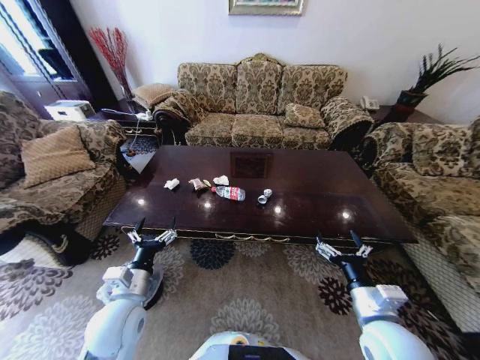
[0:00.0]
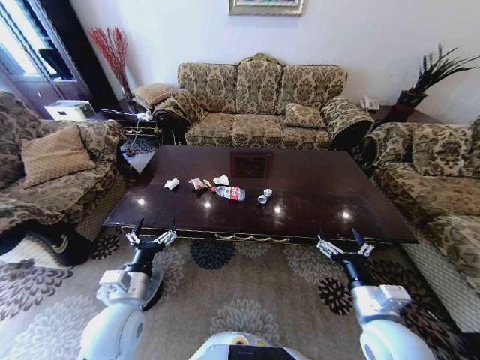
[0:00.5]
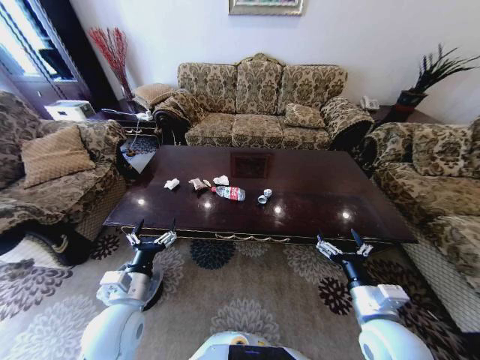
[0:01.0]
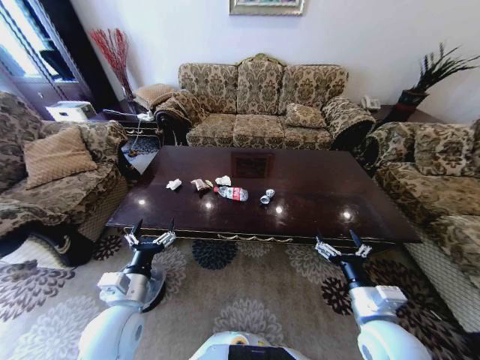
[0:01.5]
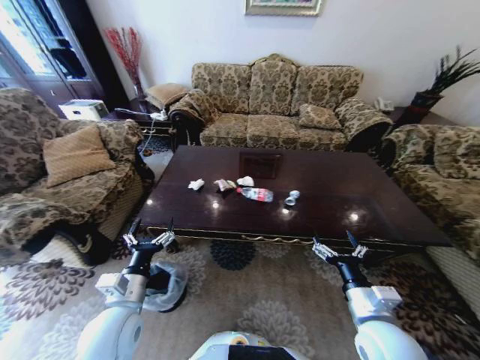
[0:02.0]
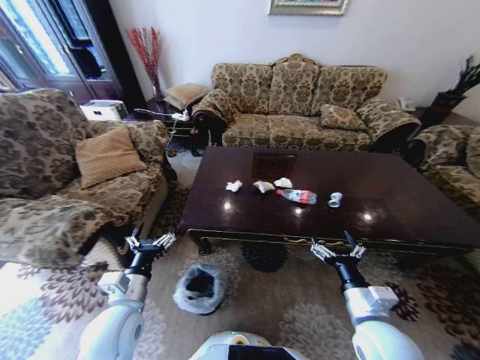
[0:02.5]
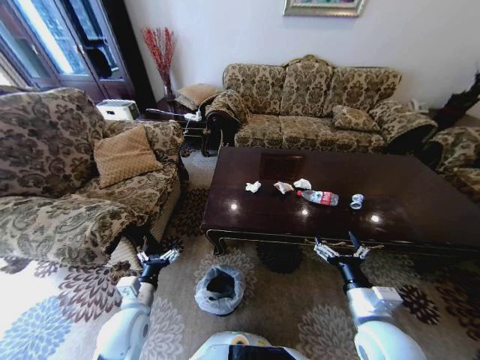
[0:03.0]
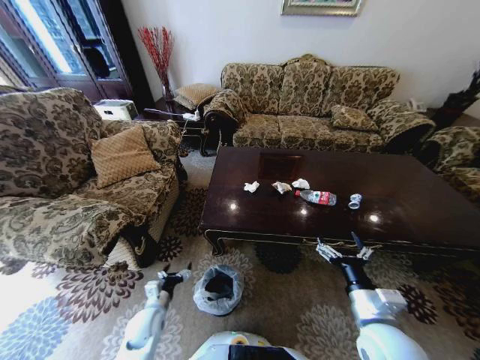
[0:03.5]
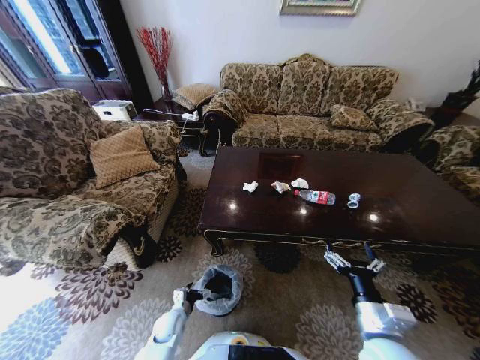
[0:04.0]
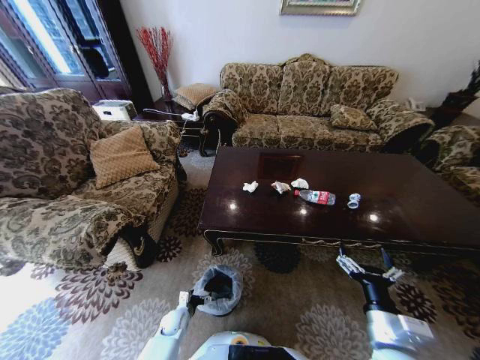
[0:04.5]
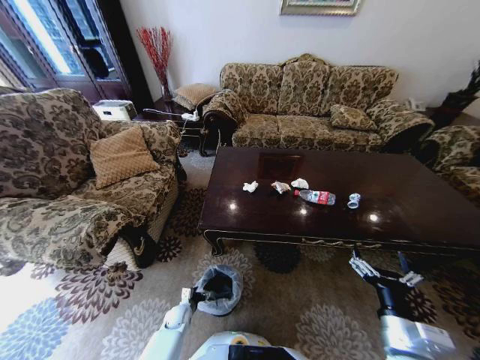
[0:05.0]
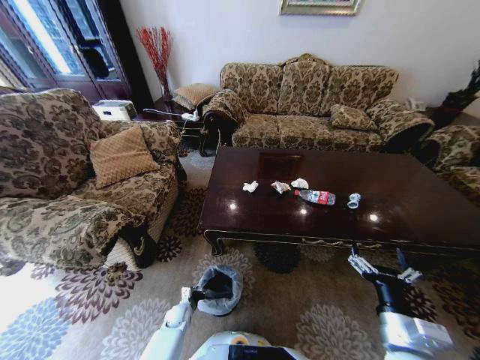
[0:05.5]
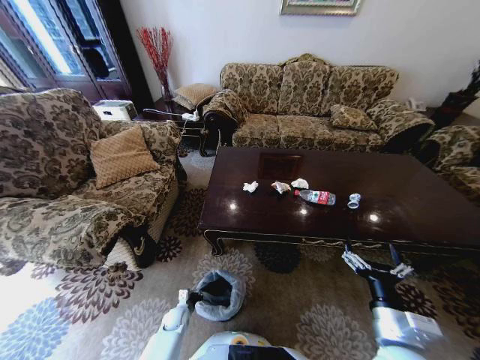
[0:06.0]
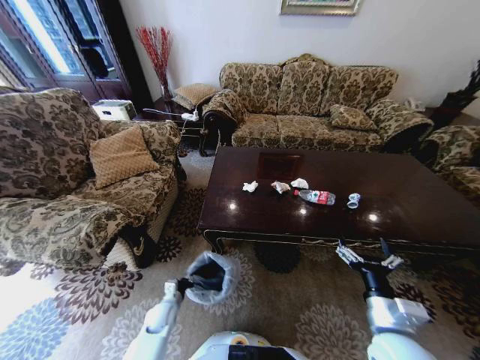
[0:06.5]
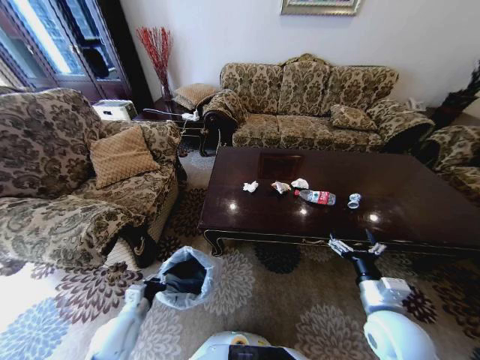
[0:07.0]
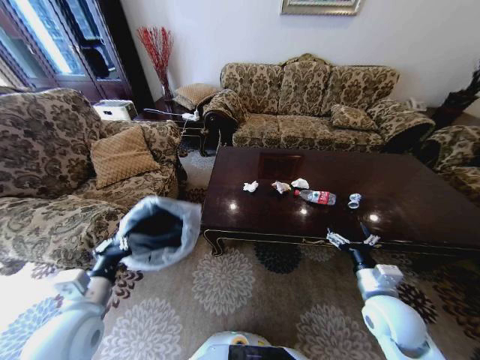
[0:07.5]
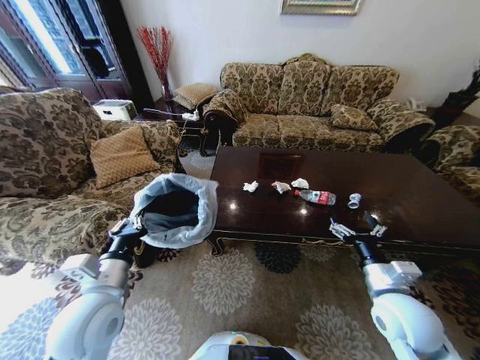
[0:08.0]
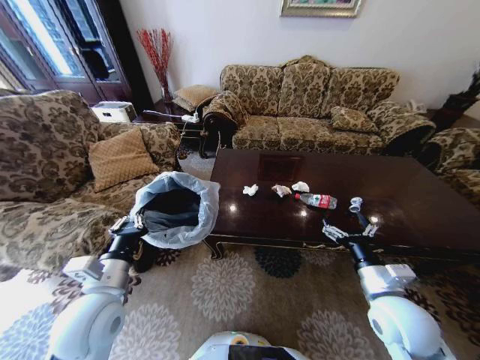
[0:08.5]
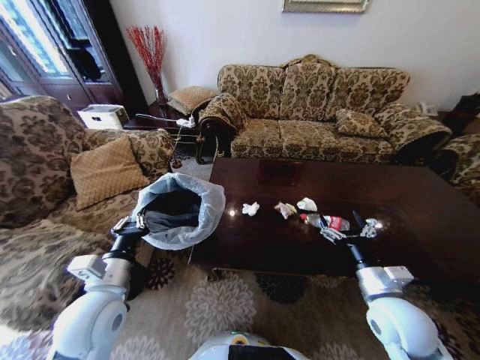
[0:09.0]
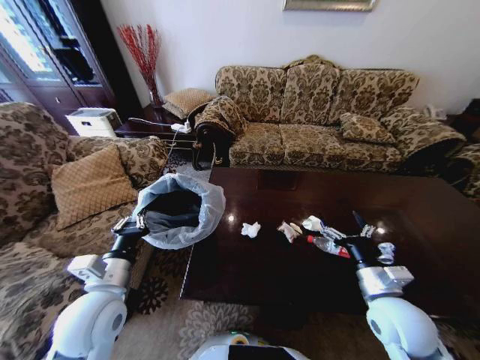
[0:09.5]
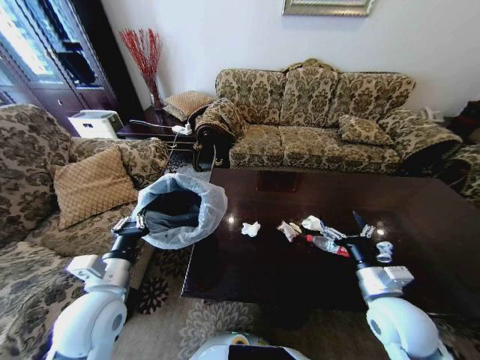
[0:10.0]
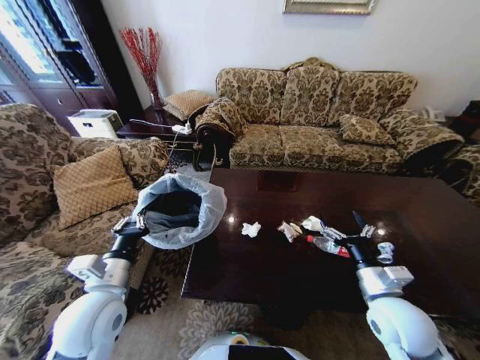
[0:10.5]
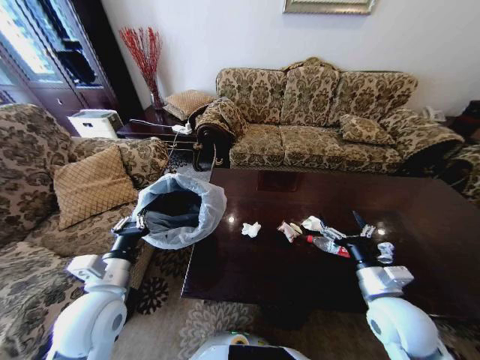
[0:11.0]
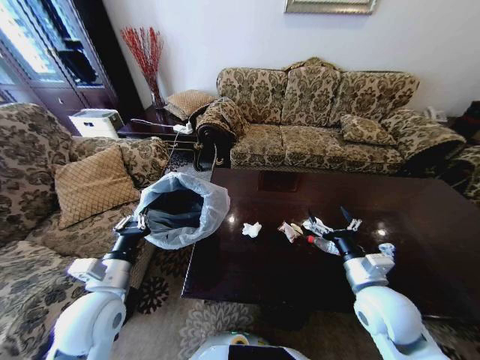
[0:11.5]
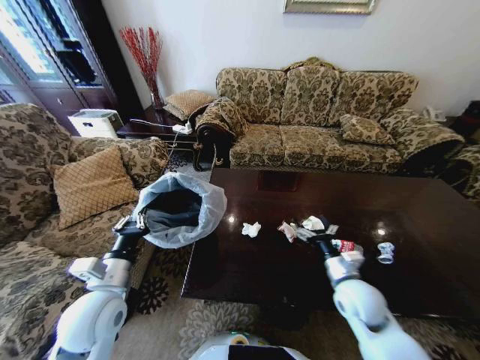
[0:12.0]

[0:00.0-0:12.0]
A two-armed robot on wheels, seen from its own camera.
Task of the whole recording: Move to the front of the table and place the trash on the table into the trash bin.
0:02.0 to 0:04.0: The left gripper shifts roughly 30 cm downward.
0:04.0 to 0:06.0: The left gripper travels downward by about 5 cm, and closes up.
0:06.0 to 0:08.0: The right gripper goes approximately 10 cm forward. Meanwhile the left gripper shifts some 40 cm upward.
0:10.0 to 0:12.0: The right gripper moves forward and downward, about 10 cm.

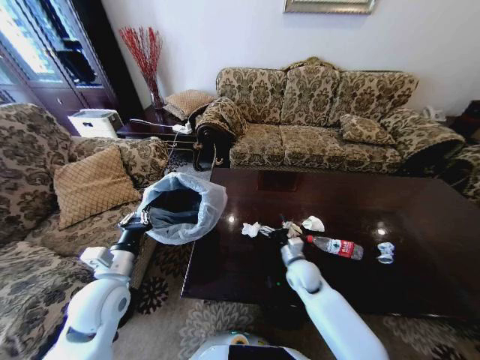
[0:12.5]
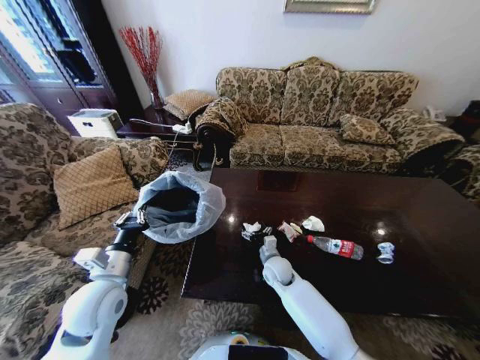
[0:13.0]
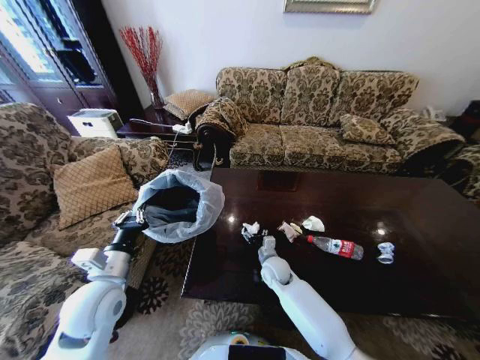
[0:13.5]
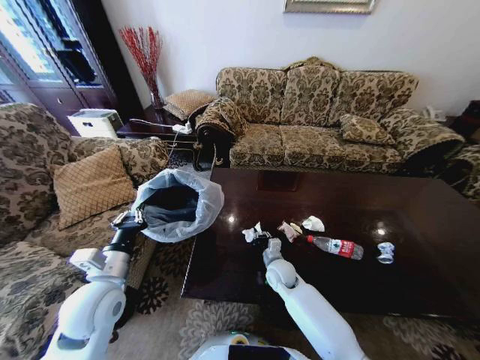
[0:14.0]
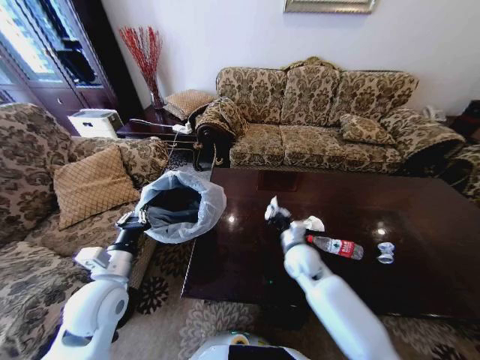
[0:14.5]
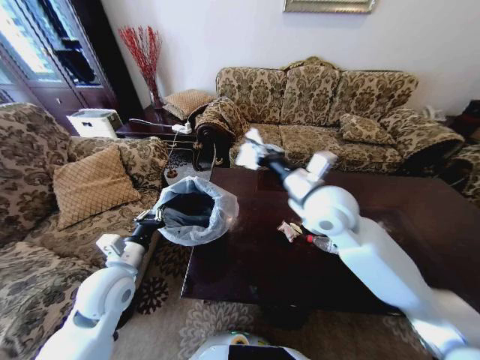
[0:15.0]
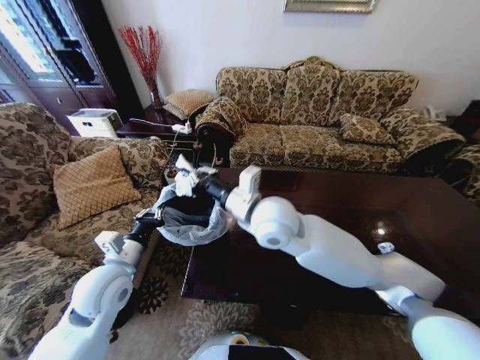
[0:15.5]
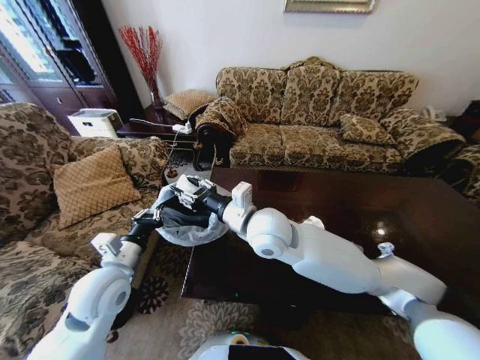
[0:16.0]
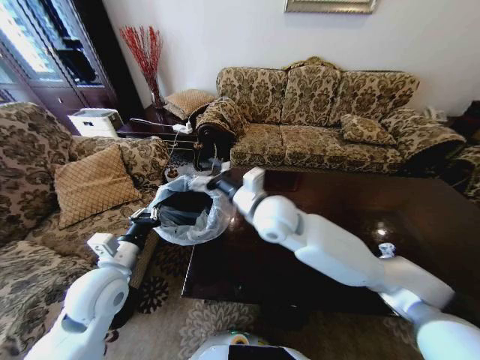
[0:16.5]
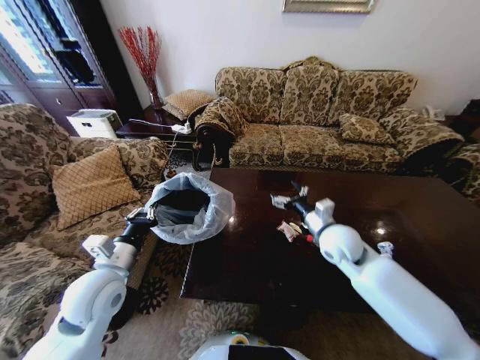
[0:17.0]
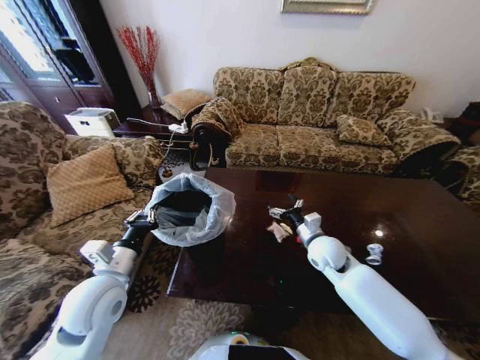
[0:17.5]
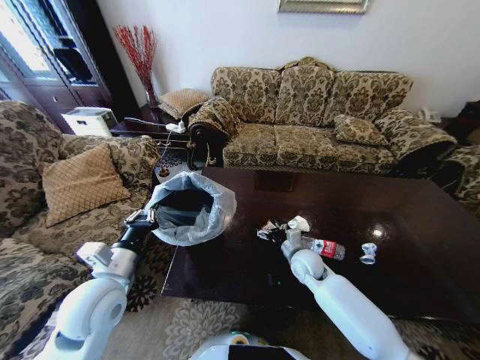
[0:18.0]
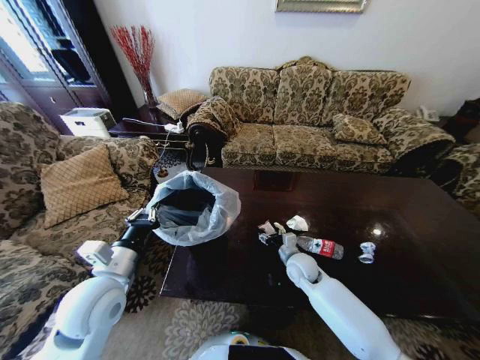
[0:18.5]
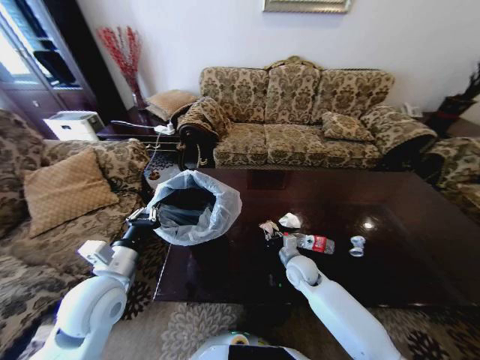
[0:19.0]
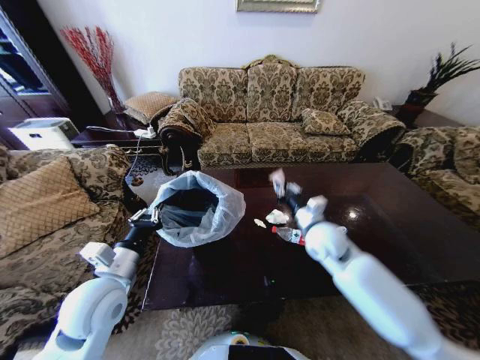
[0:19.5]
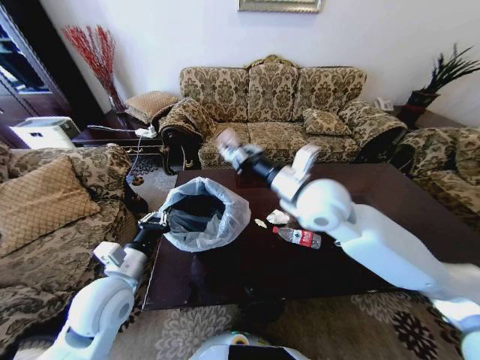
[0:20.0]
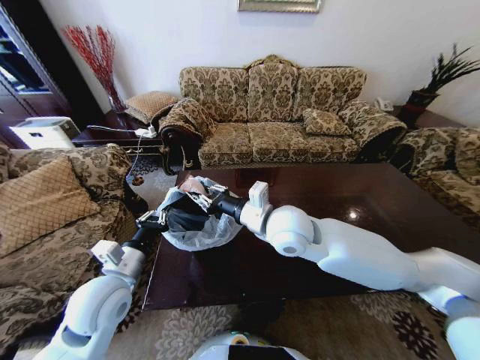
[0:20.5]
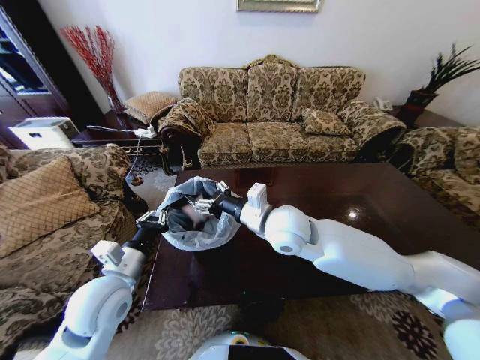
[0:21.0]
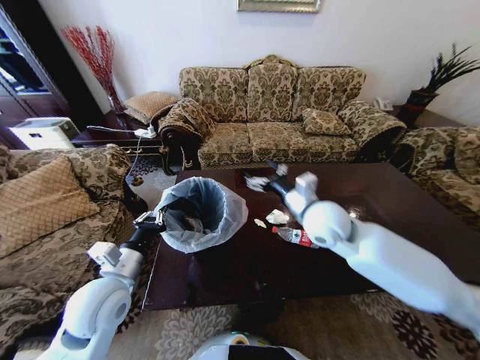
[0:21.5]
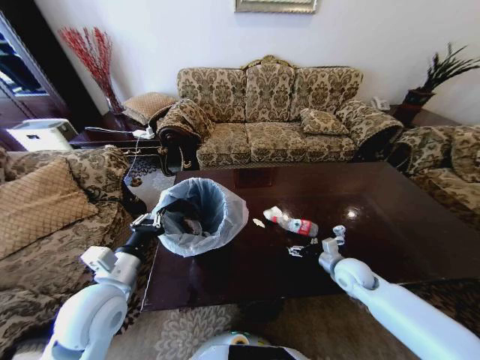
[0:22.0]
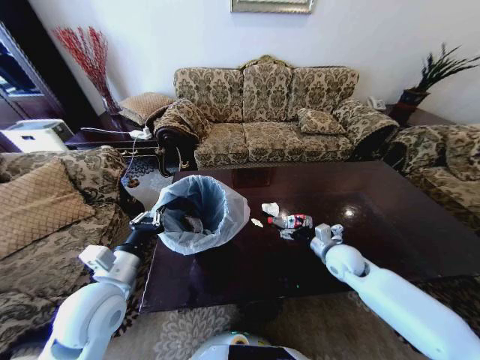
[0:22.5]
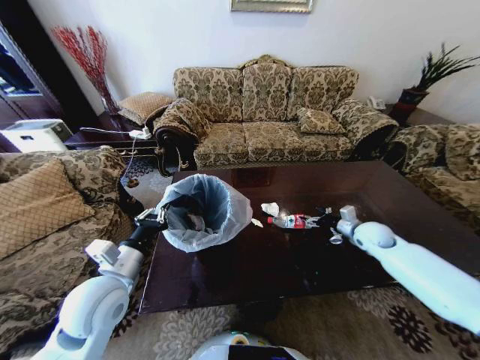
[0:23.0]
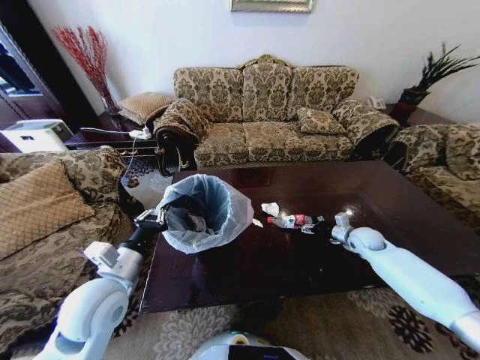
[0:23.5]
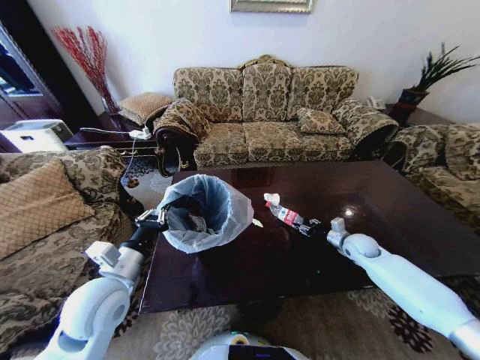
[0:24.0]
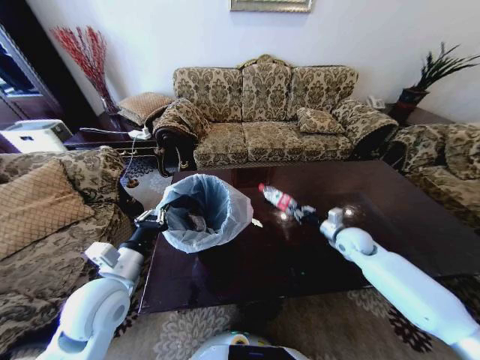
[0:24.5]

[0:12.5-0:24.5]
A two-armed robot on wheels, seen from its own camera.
Task of the whole recording: Move to the front of the table and place the trash on the table into the trash bin.
0:12.5 to 0:14.5: The right gripper travels upward by some 10 cm, and closes its fingers.
0:14.5 to 0:16.5: The right gripper shifts about 25 cm upward and to the left, and opens its fingers.
0:16.5 to 0:18.5: The right gripper travels downward and to the right by about 30 cm.
0:18.5 to 0:20.5: The right gripper goes approximately 30 cm upward and to the left, and closes up.
0:20.5 to 0:22.5: The right gripper heads to the right and downward, covering about 30 cm, and opens up.
0:22.5 to 0:24.5: The right gripper travels forward and to the right by some 10 cm, and closes up.

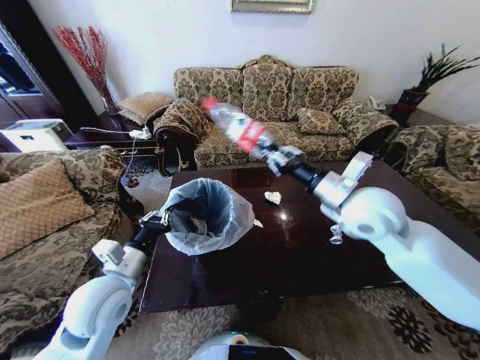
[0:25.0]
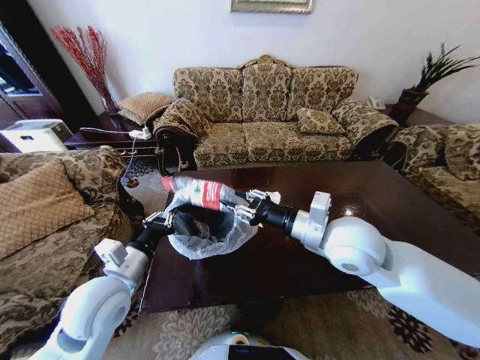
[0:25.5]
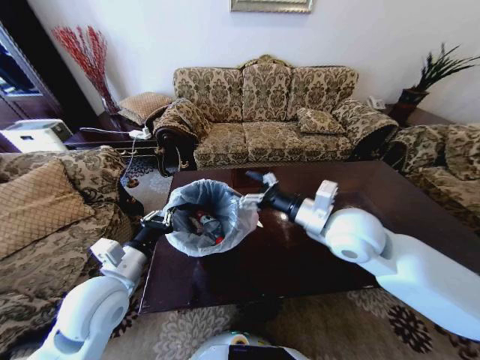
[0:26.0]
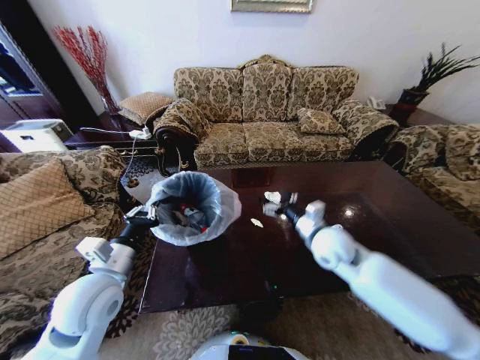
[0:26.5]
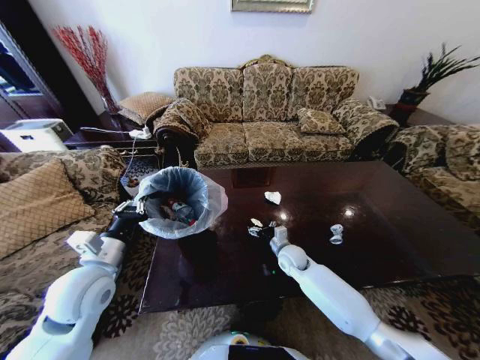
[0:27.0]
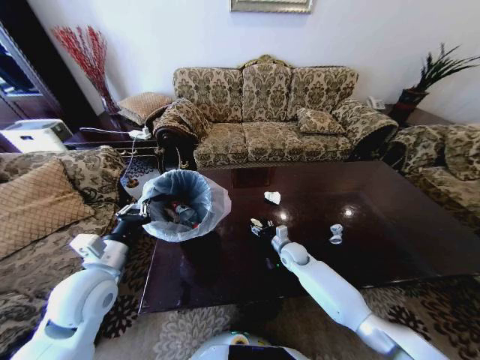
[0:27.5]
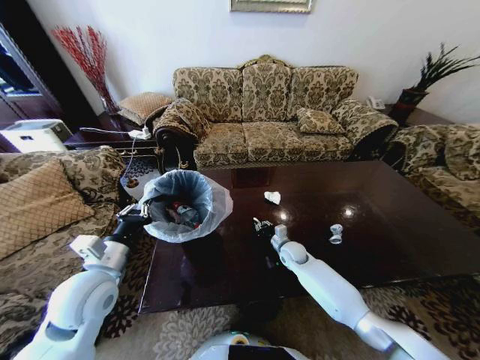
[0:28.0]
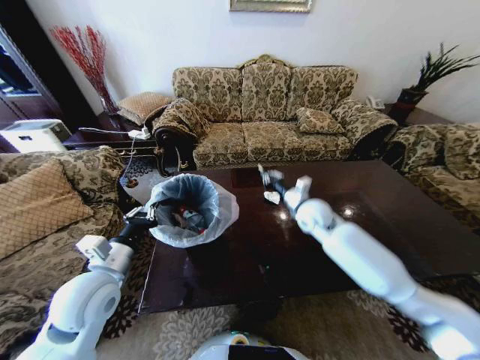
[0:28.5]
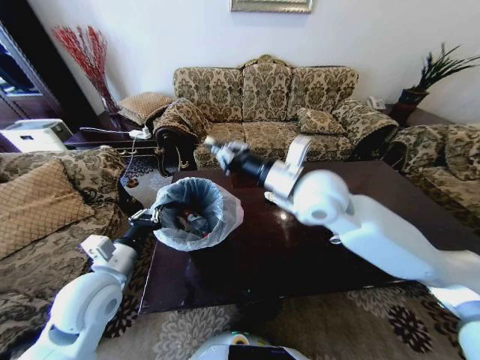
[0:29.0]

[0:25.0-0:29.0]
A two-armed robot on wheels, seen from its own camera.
Task of the whole recording: Move to the front of the table and place the trash on the table into the trash bin.
0:25.0 to 0:27.0: The right gripper goes some 35 cm downward, and opens its fingers.
0:27.0 to 0:29.0: The right gripper is displaced upward by approximately 35 cm, and closes up.
